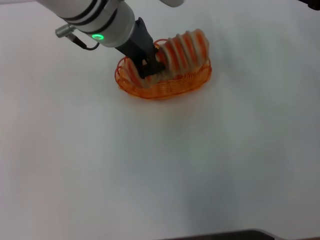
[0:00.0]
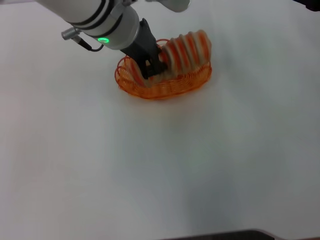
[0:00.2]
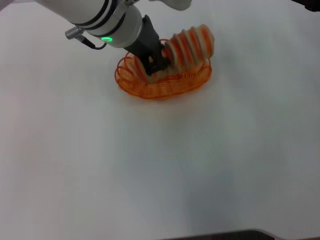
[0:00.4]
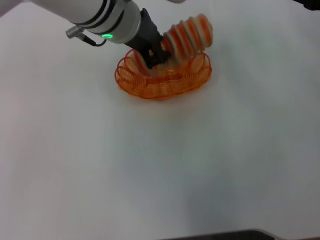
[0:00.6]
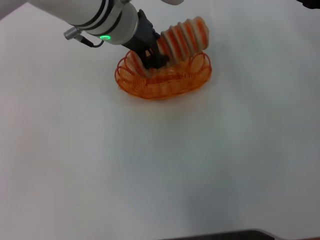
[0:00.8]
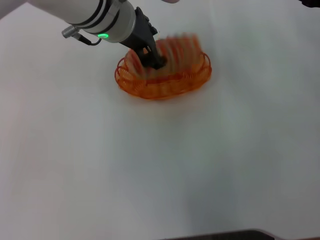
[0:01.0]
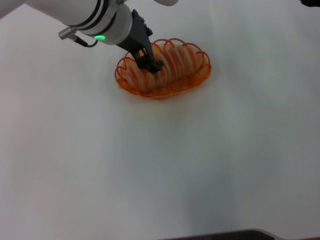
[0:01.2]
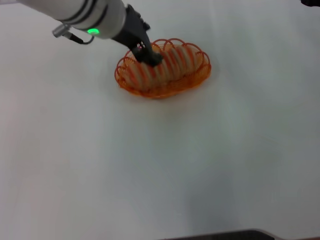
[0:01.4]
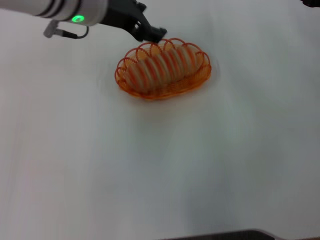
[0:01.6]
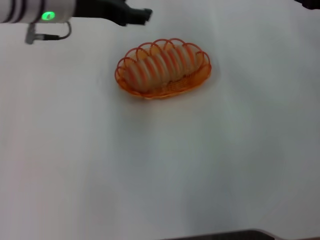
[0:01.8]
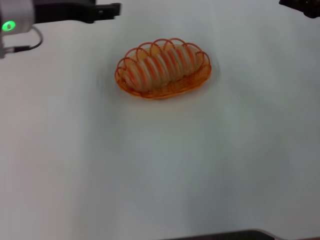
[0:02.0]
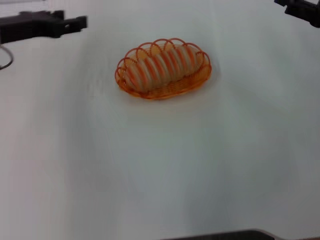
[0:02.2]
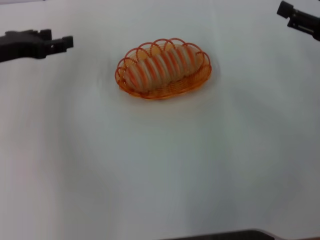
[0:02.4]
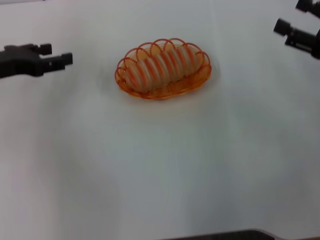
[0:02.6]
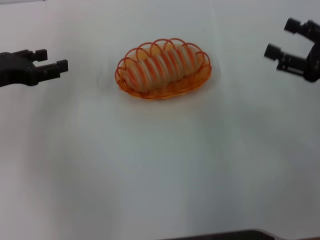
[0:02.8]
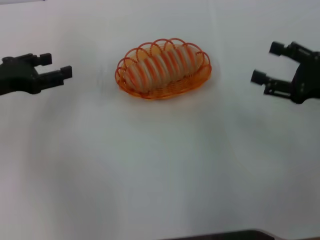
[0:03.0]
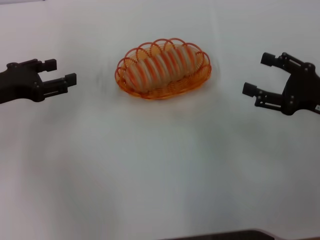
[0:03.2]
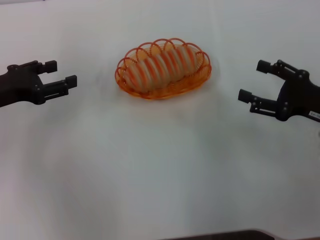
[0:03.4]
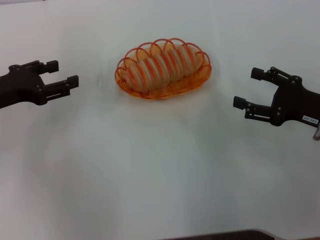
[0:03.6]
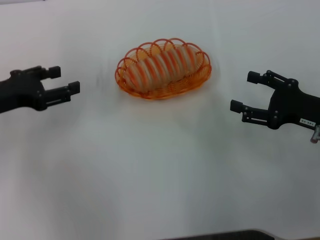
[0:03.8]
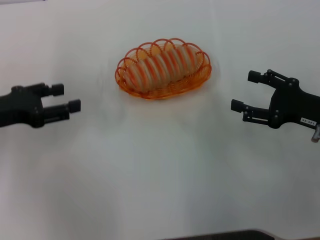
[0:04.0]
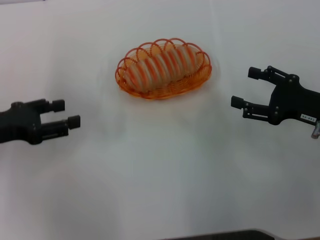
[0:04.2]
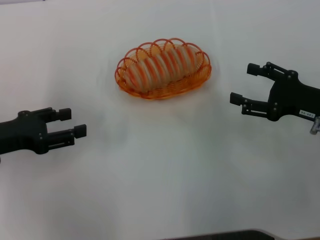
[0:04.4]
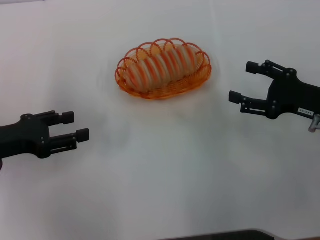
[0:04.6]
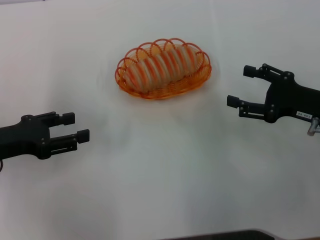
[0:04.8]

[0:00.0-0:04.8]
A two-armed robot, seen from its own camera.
0:00.0 to 0:01.6: The left gripper opens its fingers.
0:01.6 to 0:03.2: The right gripper is displaced backward and downward by approximately 10 cm. The left gripper travels to the left and downward by some 20 cm.
0:03.2 to 0:04.8: The left gripper moves backward, roughly 5 cm.
